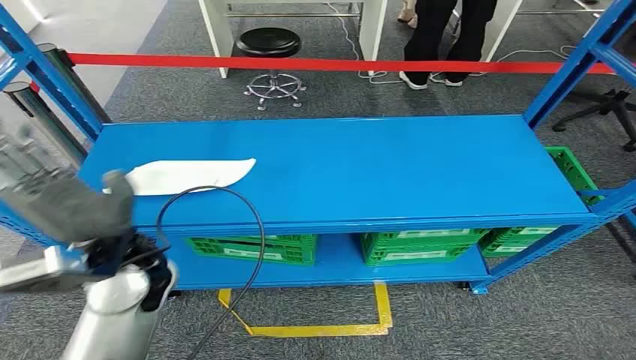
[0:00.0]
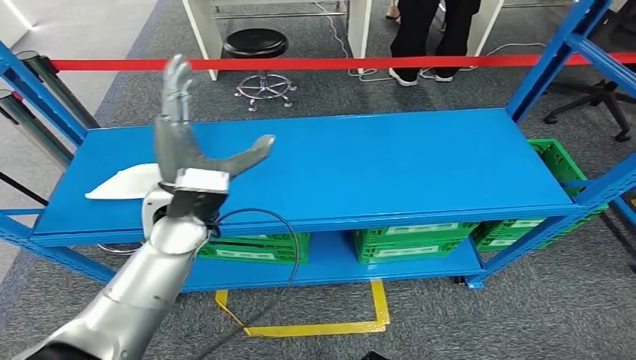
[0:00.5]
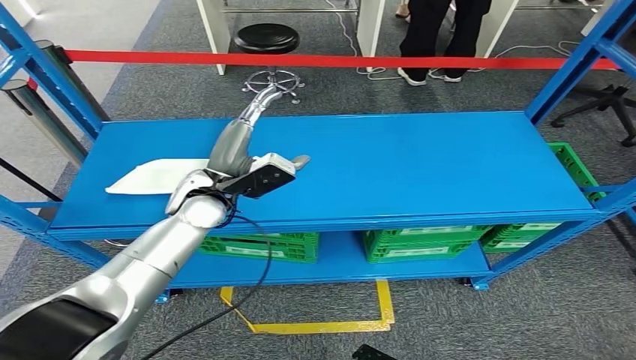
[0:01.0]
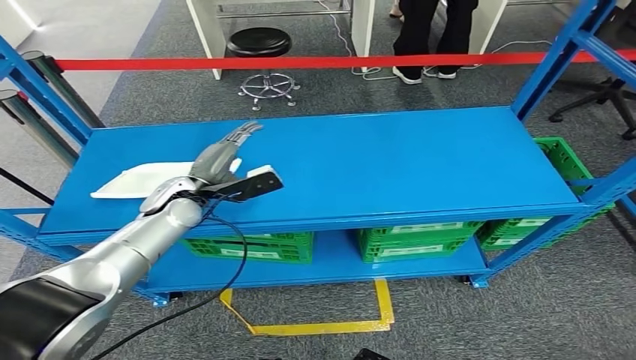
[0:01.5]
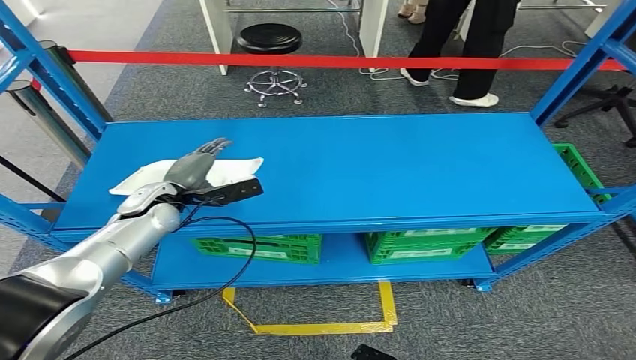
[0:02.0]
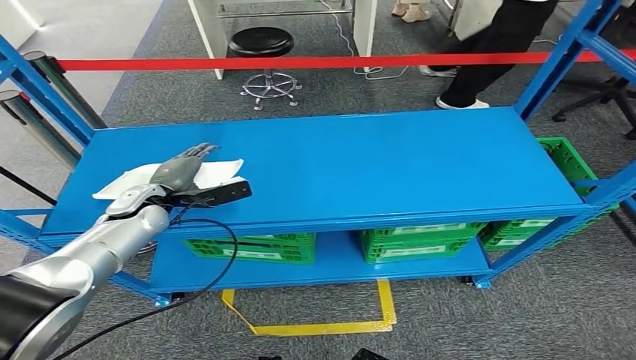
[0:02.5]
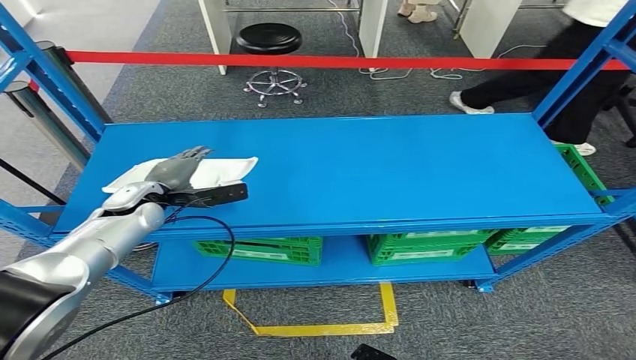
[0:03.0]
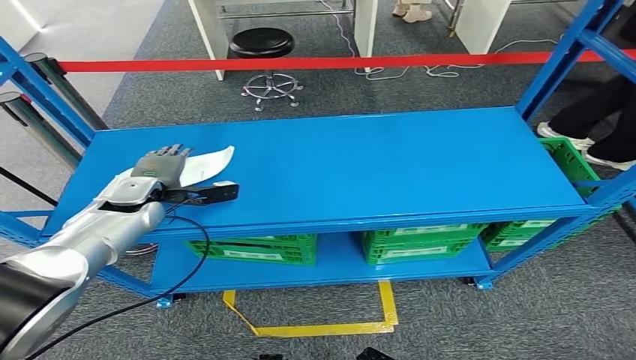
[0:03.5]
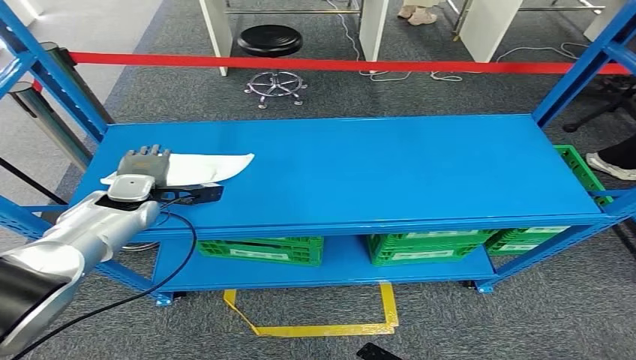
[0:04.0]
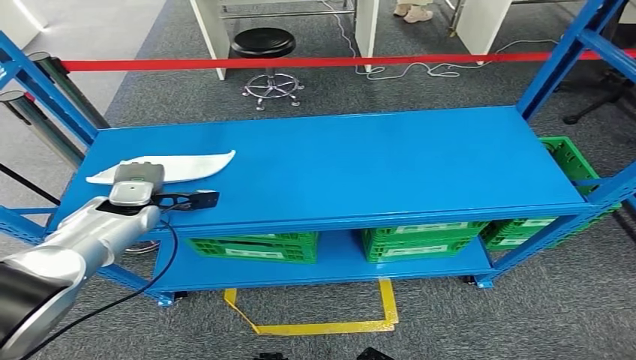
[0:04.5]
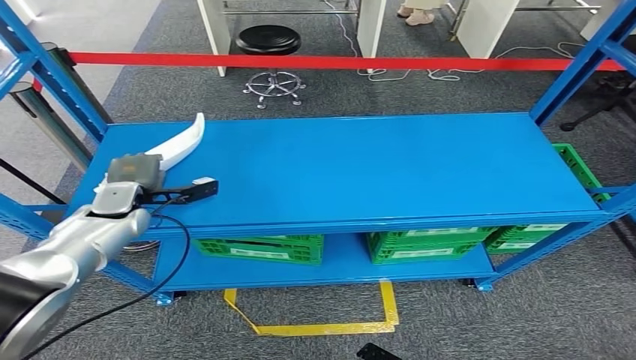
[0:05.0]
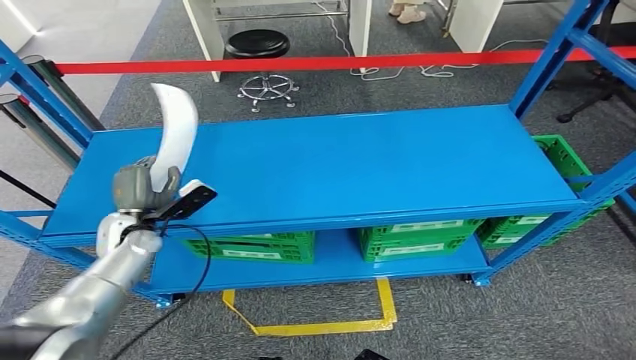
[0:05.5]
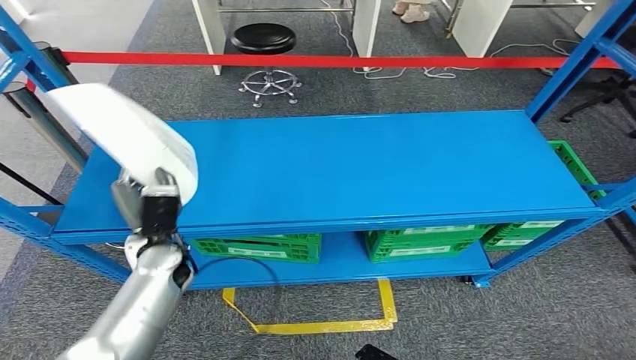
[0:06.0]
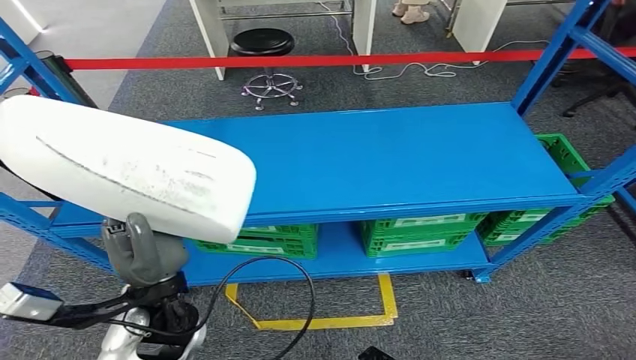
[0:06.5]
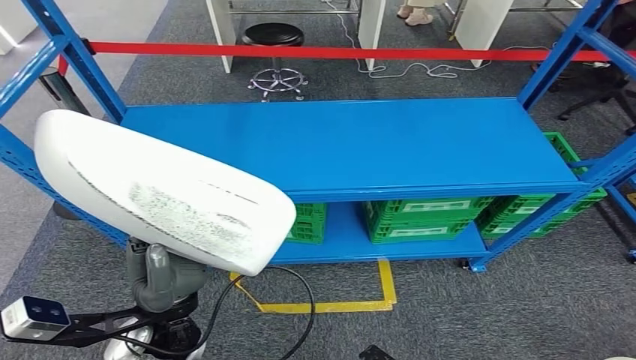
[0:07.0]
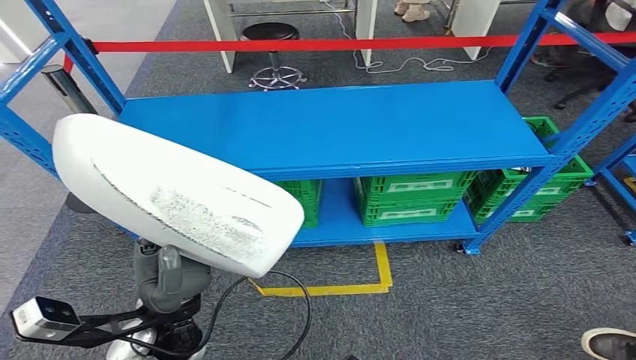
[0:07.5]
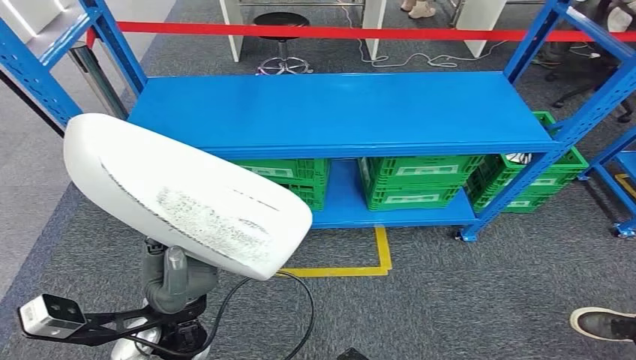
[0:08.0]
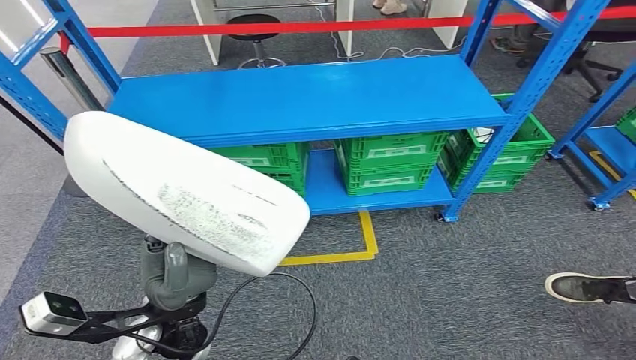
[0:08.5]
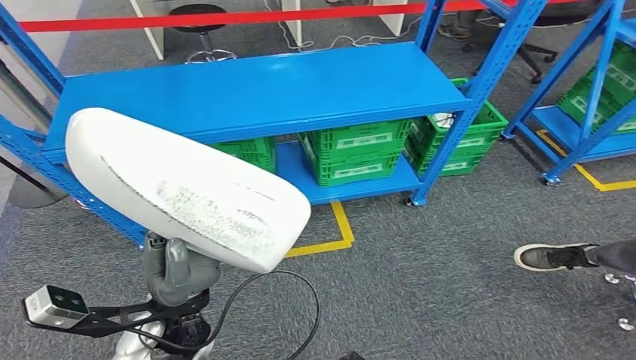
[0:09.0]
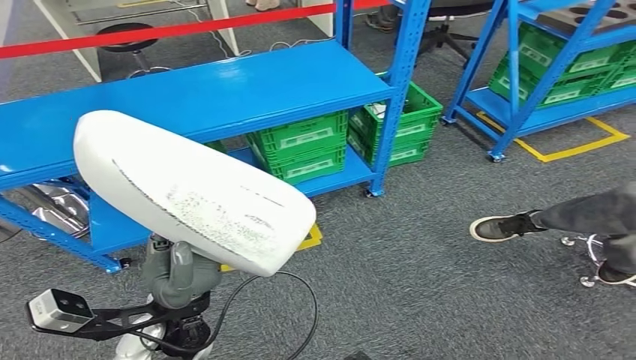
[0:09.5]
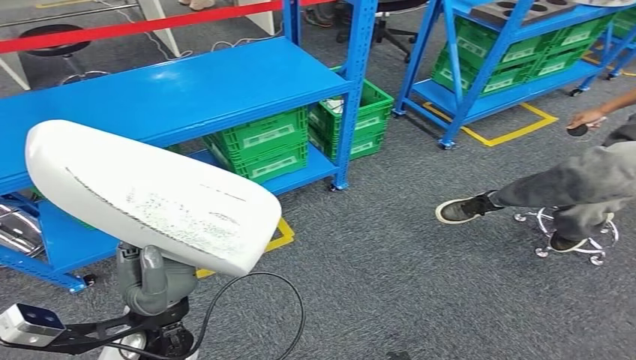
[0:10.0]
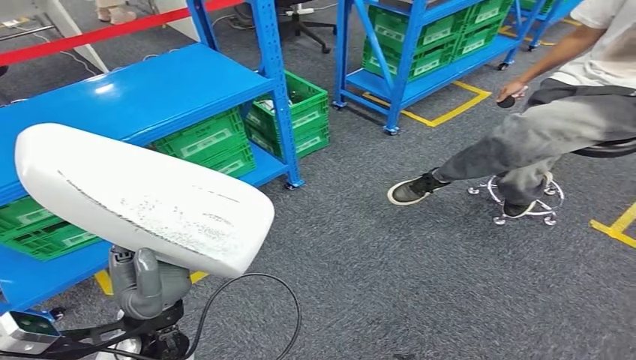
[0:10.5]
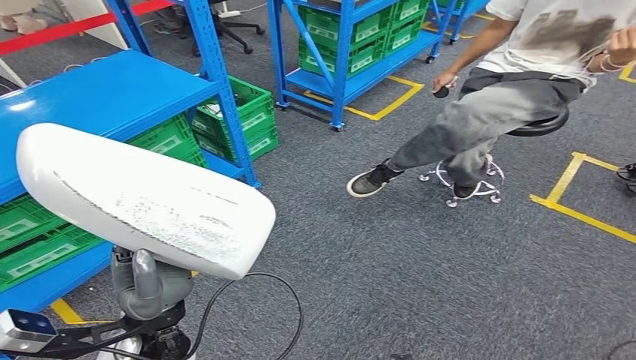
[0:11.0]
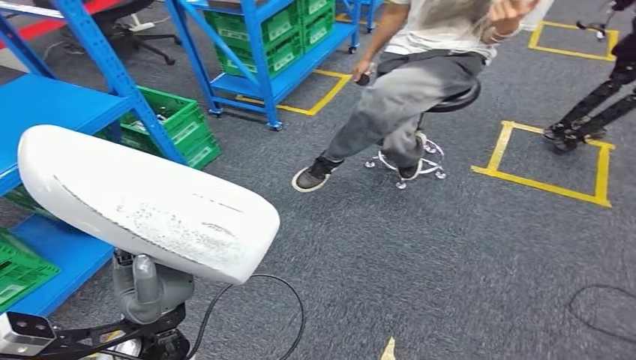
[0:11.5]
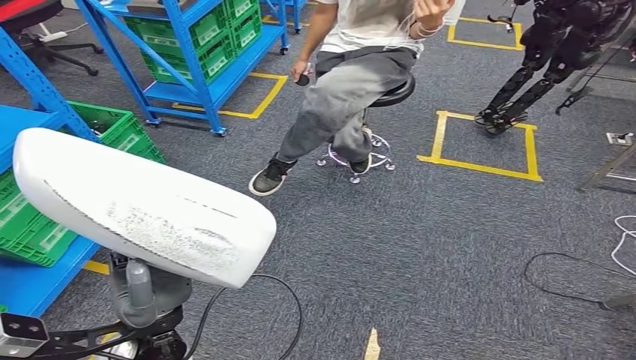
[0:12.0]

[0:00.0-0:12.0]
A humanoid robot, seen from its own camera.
Step, 0:00.0 to 0:08.0: Take small components from the rack.

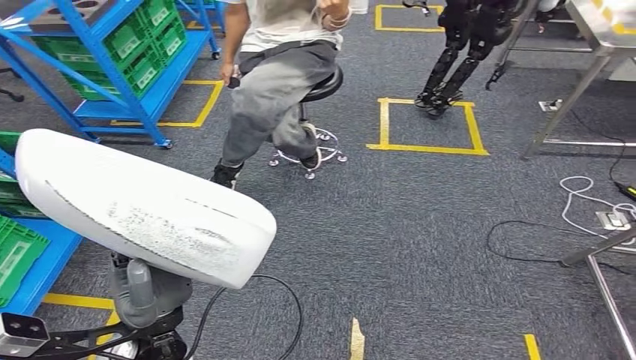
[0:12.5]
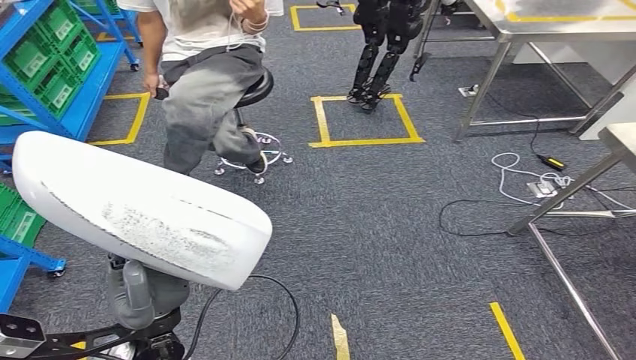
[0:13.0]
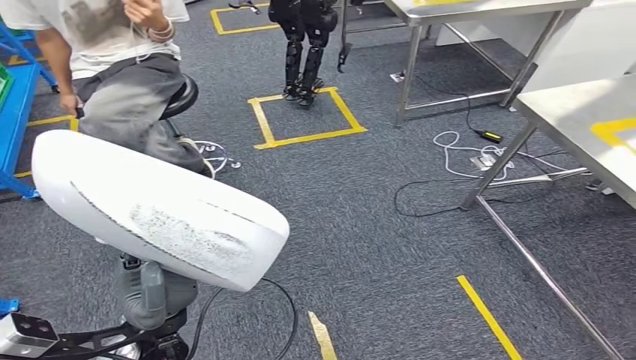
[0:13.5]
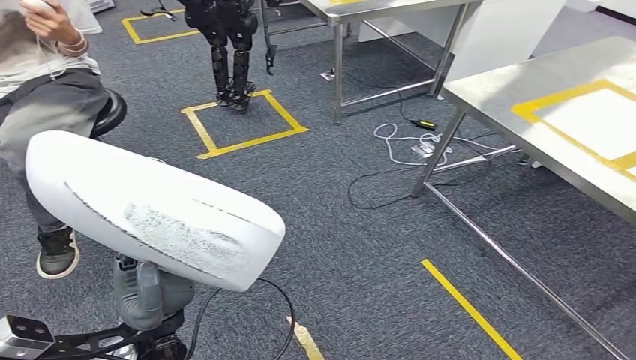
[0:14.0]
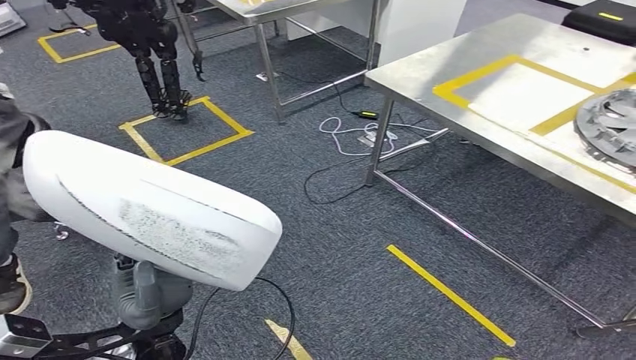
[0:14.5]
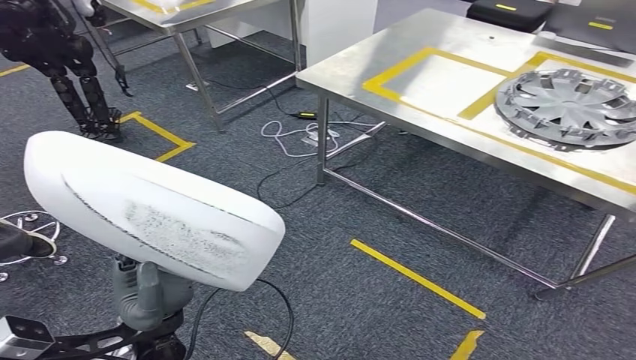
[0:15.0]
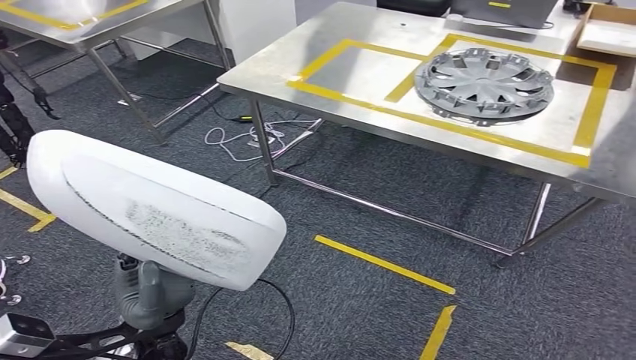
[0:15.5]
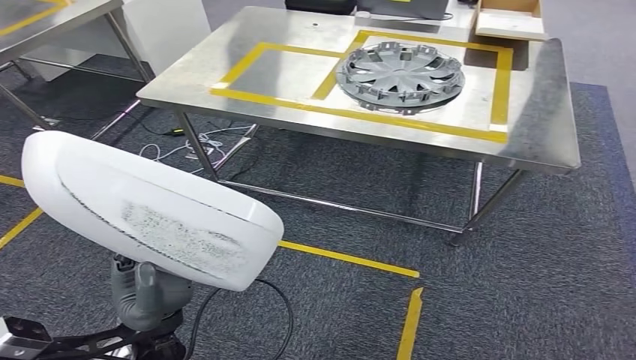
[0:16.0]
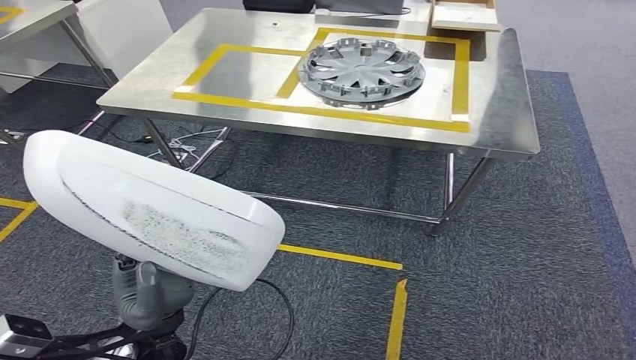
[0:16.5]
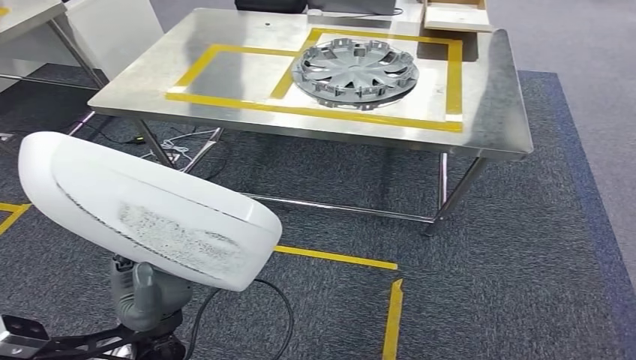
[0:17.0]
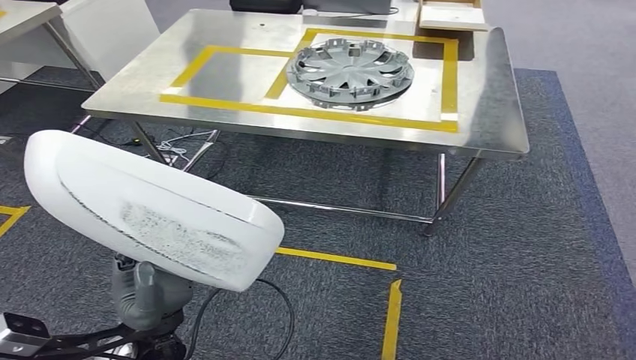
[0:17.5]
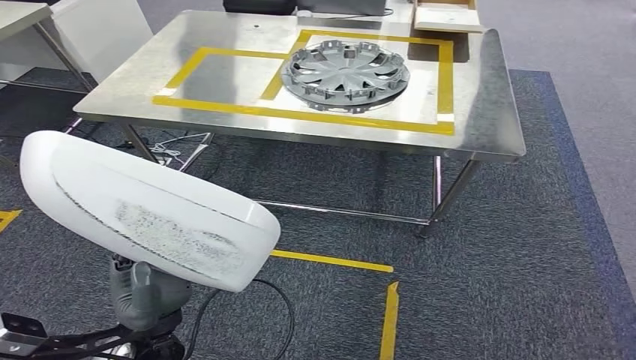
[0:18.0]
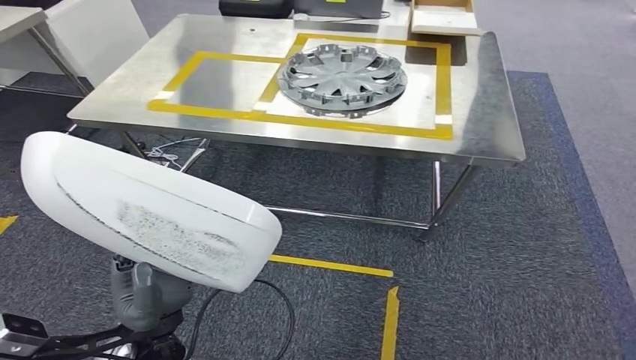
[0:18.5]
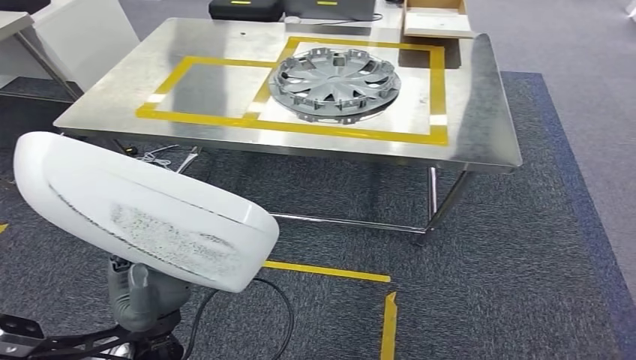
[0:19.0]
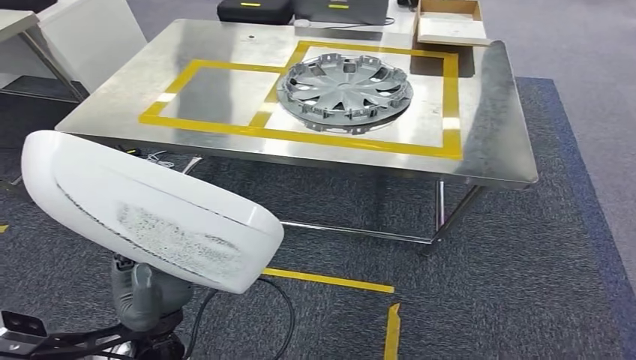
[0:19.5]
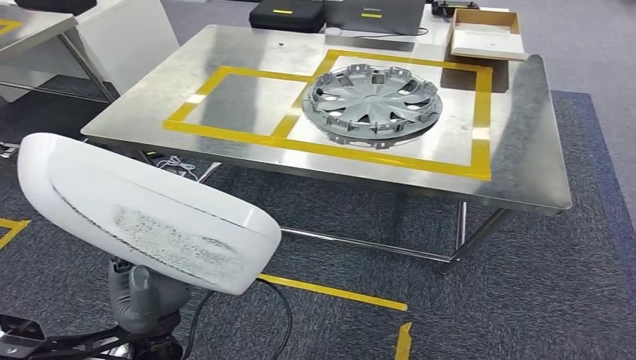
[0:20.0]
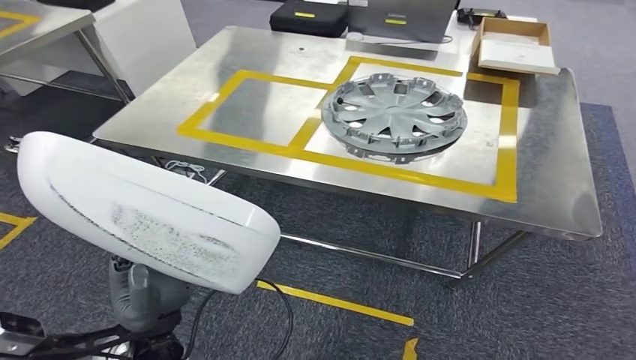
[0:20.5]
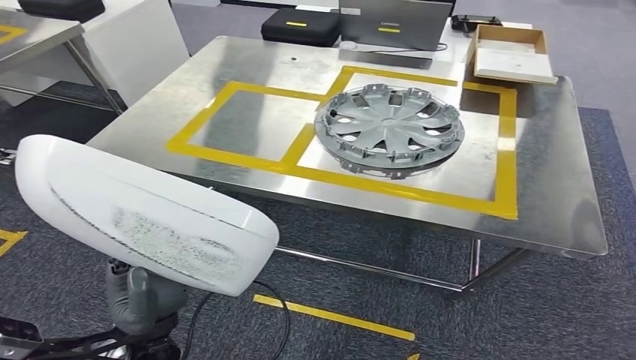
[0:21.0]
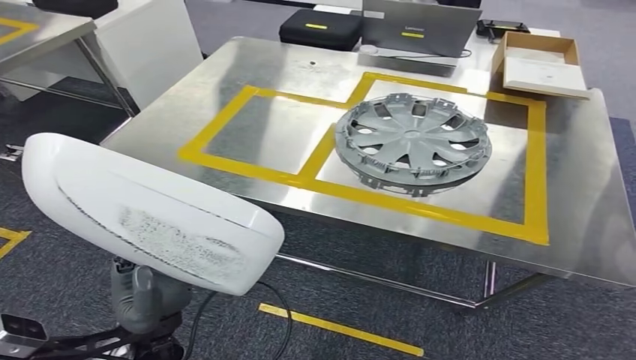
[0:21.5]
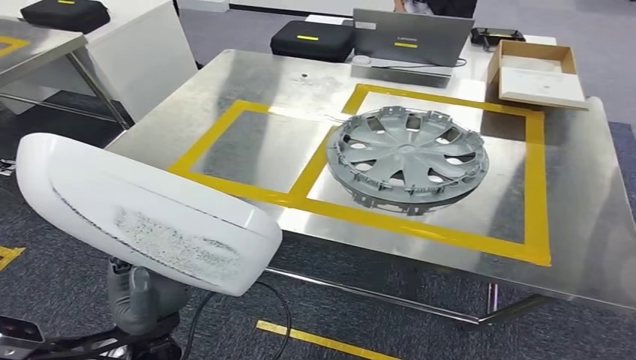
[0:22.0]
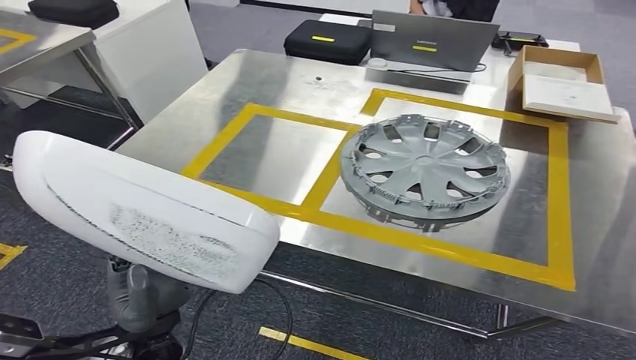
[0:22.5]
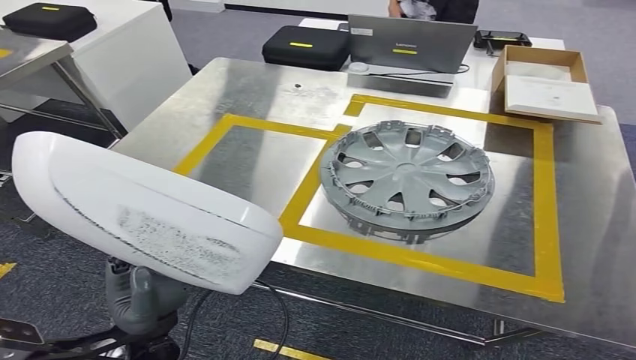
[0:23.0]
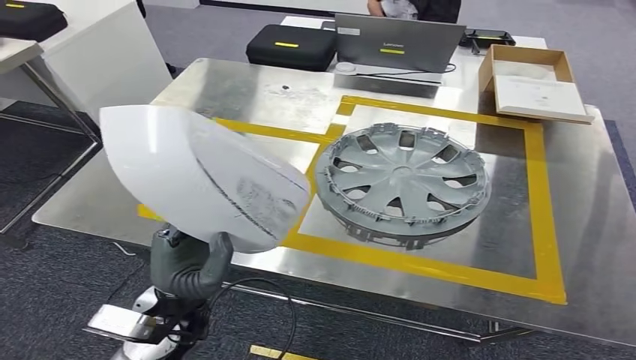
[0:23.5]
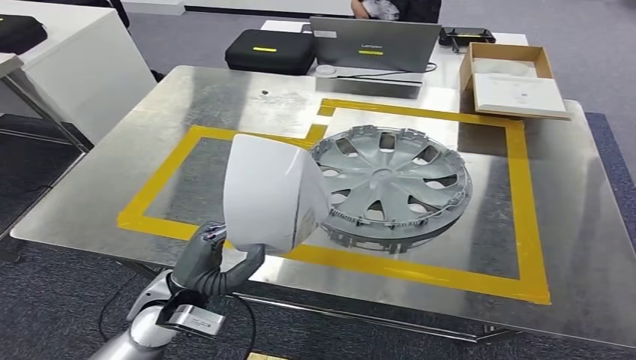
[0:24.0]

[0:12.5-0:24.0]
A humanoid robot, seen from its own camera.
Step, 0:12.5 to 0:22.5: Move the small parts to the workbench.
